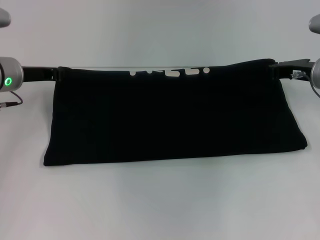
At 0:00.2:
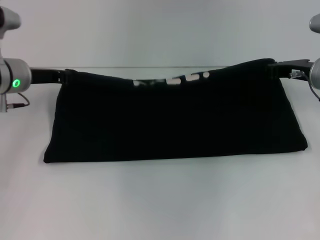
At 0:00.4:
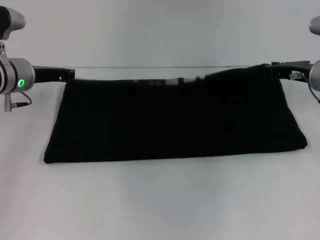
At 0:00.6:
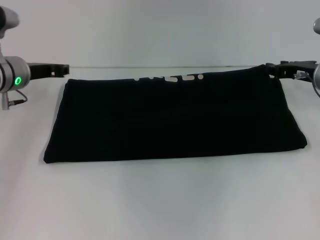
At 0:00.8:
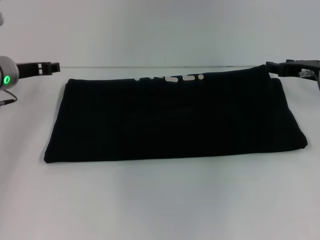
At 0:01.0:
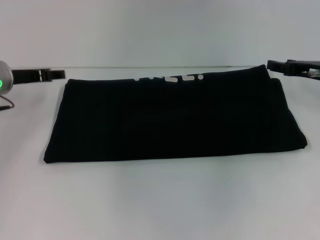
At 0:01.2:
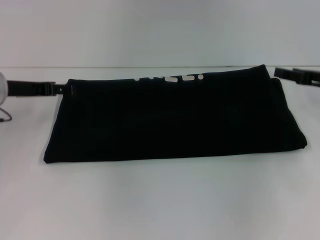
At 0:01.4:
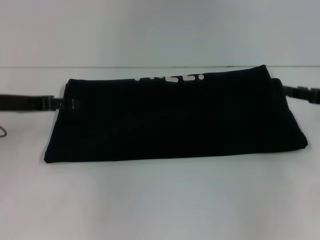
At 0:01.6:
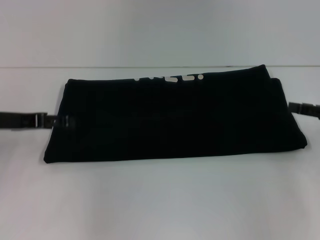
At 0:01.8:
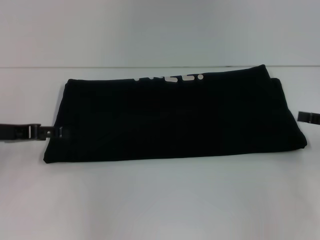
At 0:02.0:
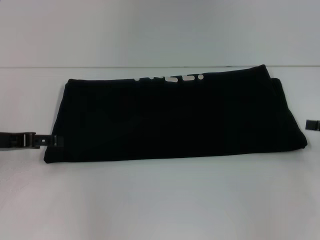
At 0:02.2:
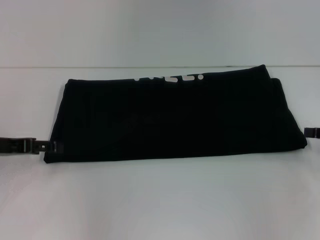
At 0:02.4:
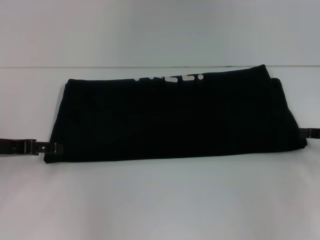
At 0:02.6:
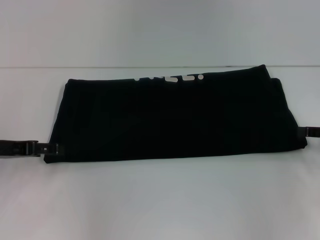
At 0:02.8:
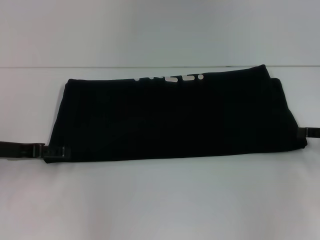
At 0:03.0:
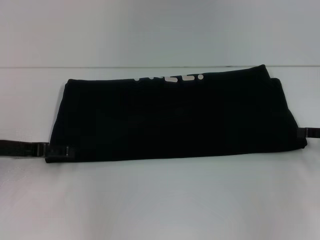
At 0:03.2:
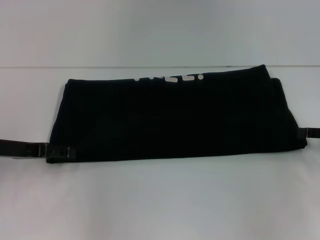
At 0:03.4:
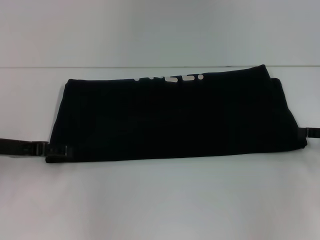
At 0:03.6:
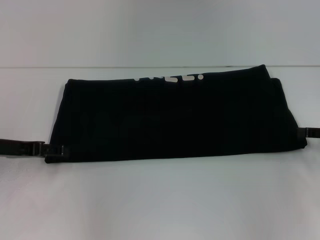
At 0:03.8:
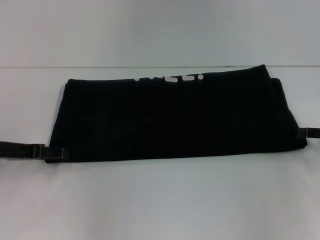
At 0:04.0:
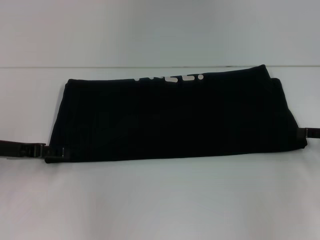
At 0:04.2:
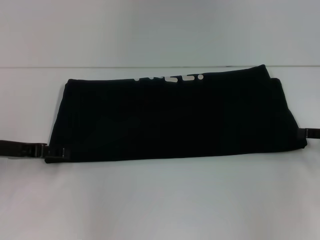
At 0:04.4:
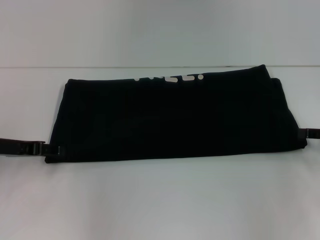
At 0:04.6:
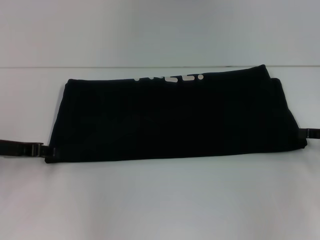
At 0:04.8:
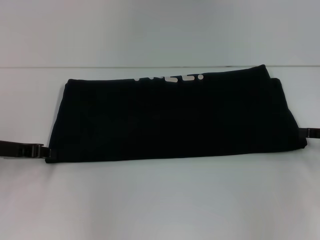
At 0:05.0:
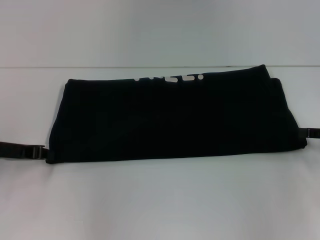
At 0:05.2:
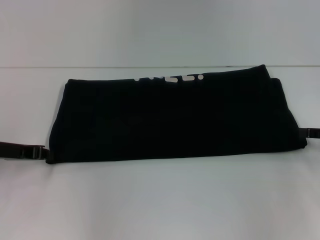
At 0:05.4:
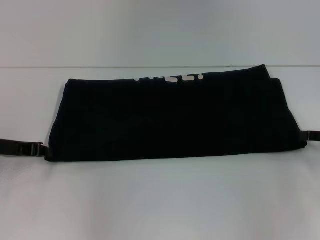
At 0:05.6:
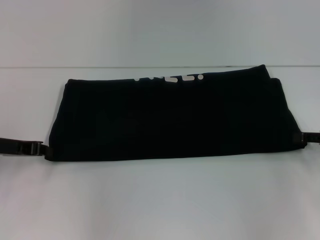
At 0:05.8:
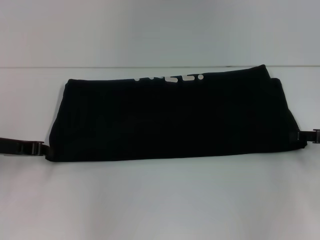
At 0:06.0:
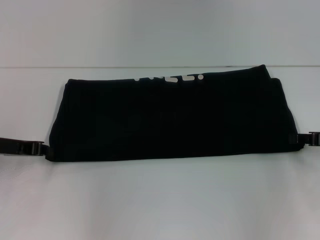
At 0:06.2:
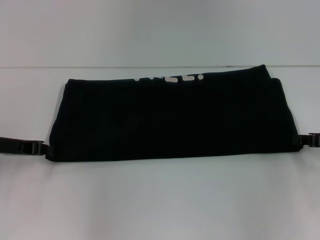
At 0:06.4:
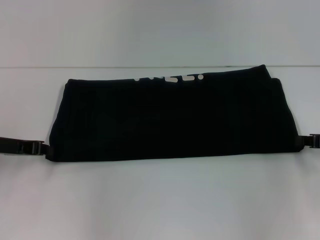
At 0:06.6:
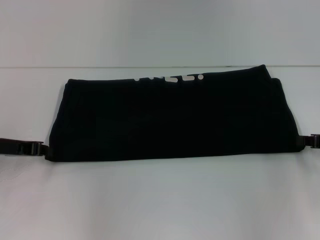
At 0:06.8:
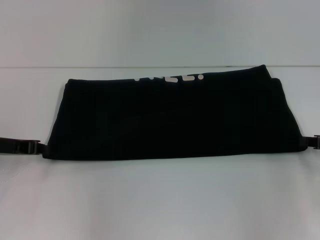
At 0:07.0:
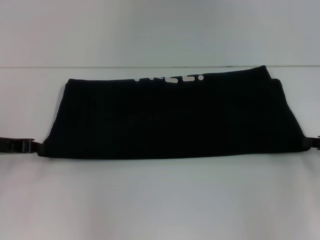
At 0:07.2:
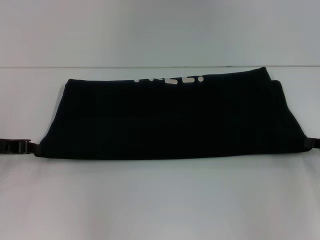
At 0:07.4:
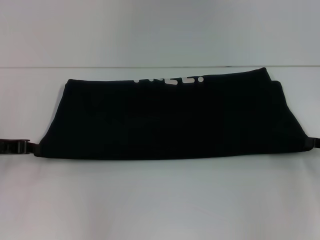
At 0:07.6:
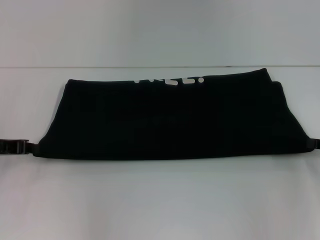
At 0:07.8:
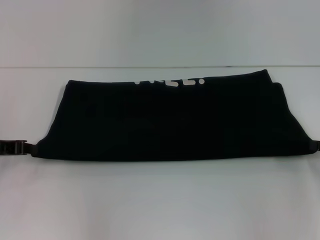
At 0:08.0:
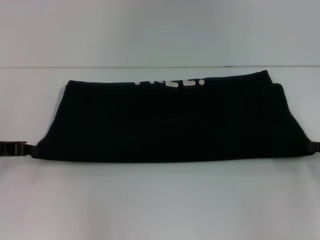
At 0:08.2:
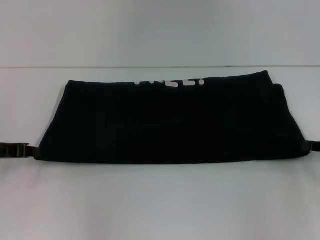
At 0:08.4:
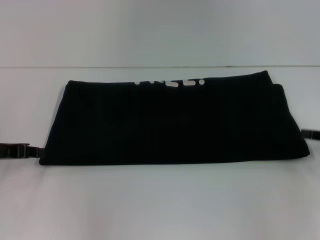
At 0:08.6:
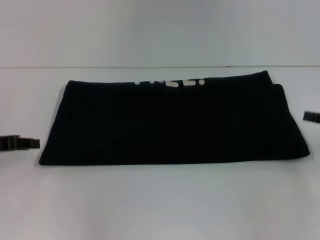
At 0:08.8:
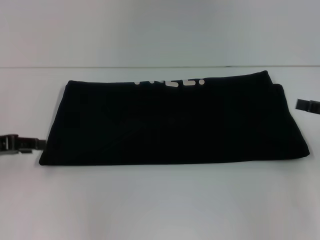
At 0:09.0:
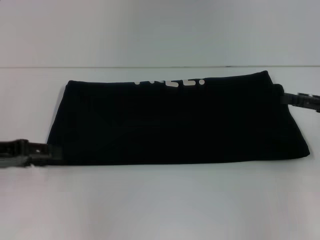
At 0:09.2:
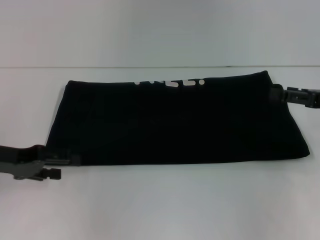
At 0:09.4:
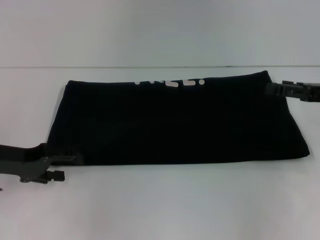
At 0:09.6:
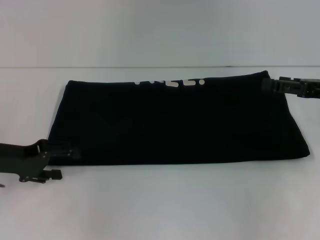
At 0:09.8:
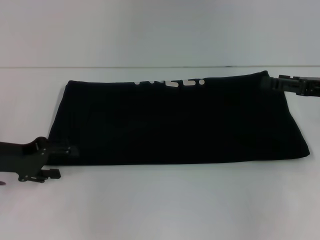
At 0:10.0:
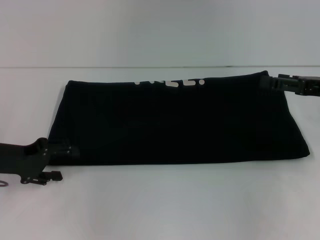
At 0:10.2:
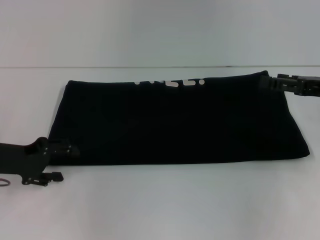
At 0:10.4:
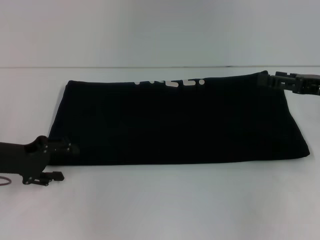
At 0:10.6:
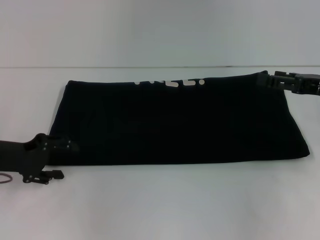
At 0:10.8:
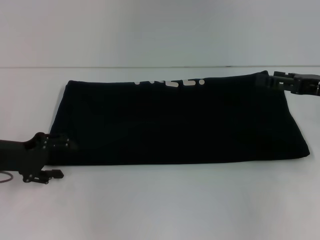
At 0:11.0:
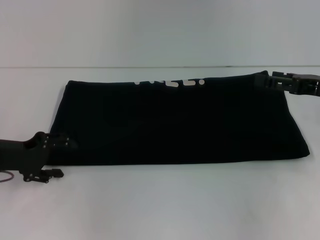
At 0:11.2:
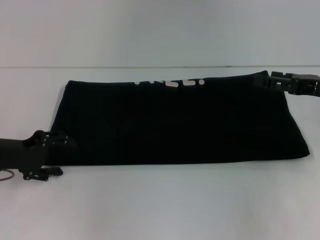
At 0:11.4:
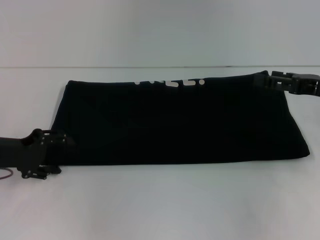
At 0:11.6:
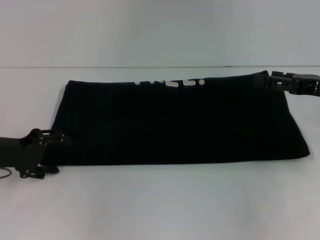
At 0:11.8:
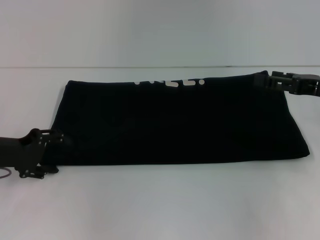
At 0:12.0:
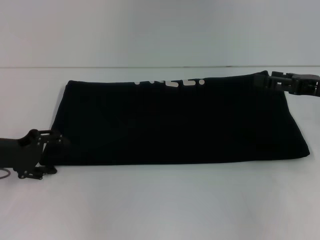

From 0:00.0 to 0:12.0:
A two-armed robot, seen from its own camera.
From 0:00.0 to 0:01.6: The right gripper is displaced backward and to the right by some 15 cm, and opens its fingers. Meanwhile the left gripper is displaced backward by about 10 cm, and opens.
From 0:01.6 to 0:03.0: There are only small adjustments of the grippers.
From 0:03.0 to 0:04.4: The two grippers keep their place.
From 0:06.0 to 0:07.6: The right gripper closes.
From 0:07.6 to 0:09.0: The left gripper opens up. Meanwhile the right gripper changes place by some 5 cm, and opens up.
From 0:09.0 to 0:10.4: The left gripper ends up about 5 cm from where it was, and opens up.
From 0:10.4 to 0:12.0: The grippers make only small movements.

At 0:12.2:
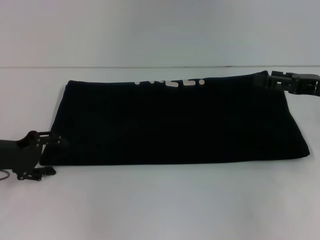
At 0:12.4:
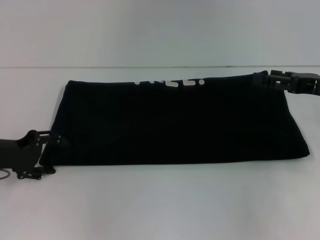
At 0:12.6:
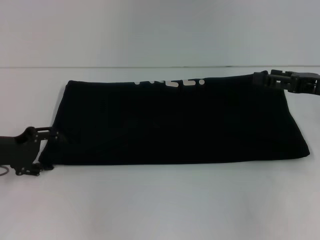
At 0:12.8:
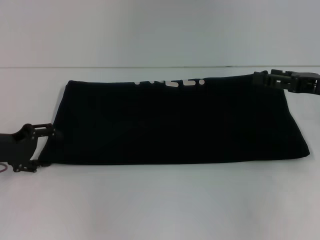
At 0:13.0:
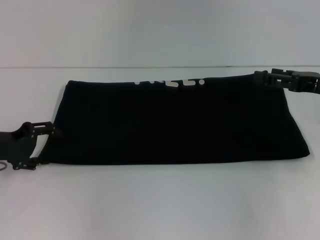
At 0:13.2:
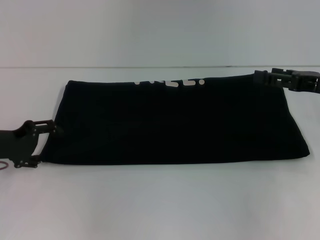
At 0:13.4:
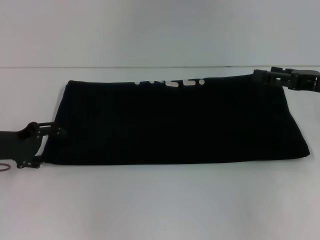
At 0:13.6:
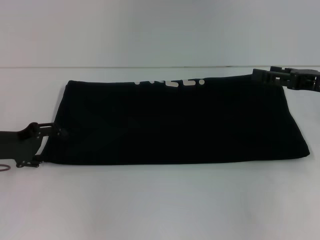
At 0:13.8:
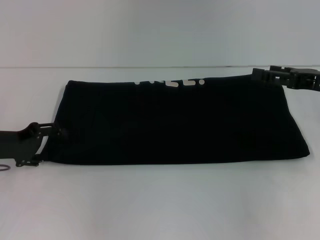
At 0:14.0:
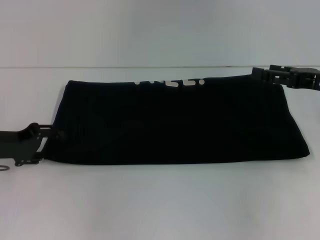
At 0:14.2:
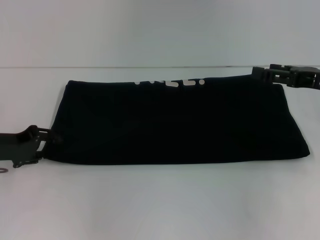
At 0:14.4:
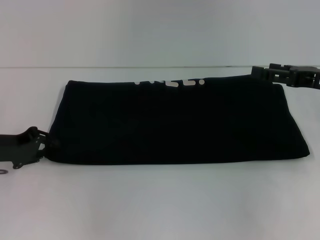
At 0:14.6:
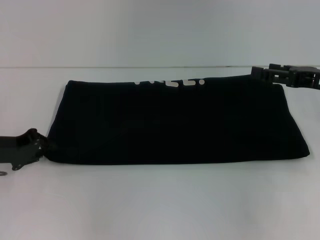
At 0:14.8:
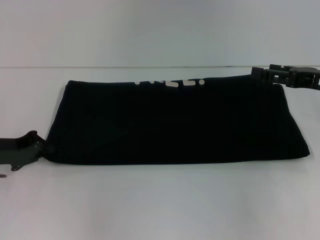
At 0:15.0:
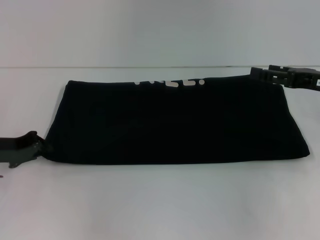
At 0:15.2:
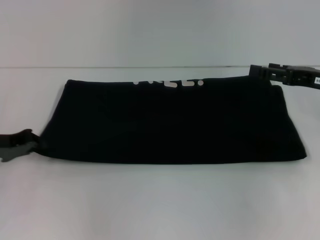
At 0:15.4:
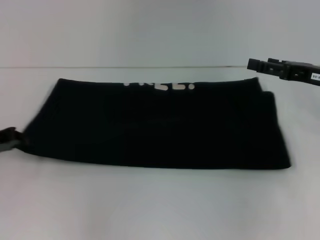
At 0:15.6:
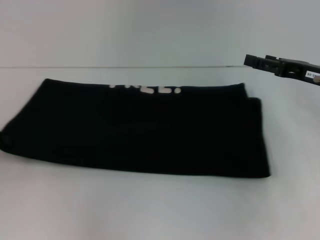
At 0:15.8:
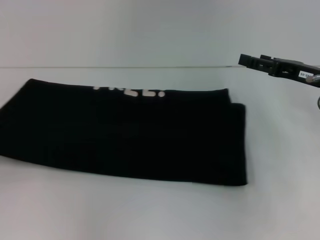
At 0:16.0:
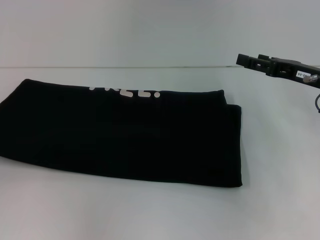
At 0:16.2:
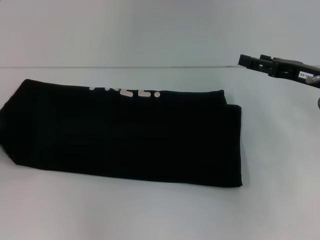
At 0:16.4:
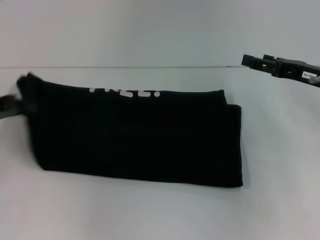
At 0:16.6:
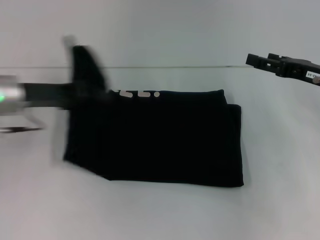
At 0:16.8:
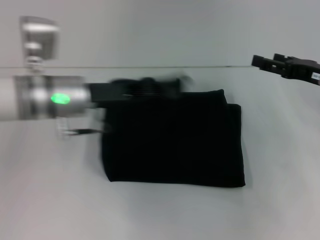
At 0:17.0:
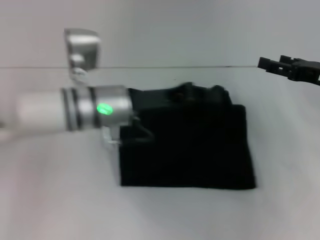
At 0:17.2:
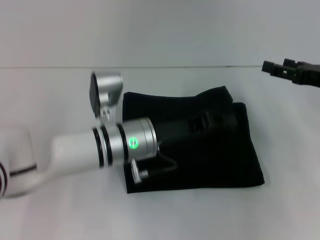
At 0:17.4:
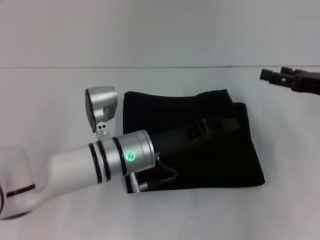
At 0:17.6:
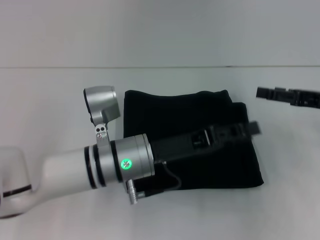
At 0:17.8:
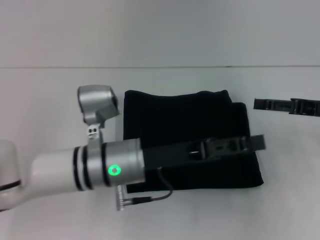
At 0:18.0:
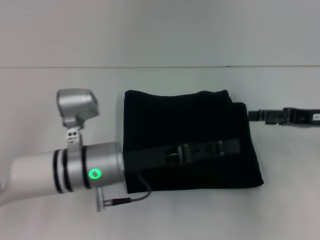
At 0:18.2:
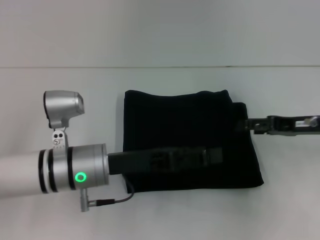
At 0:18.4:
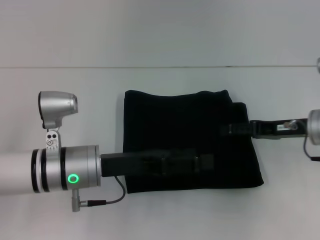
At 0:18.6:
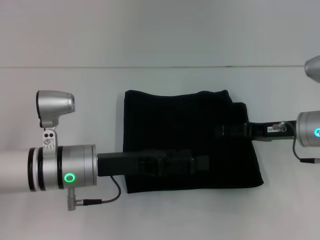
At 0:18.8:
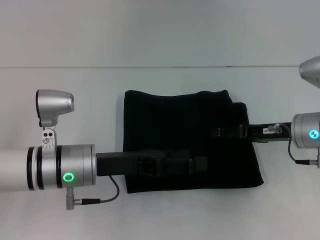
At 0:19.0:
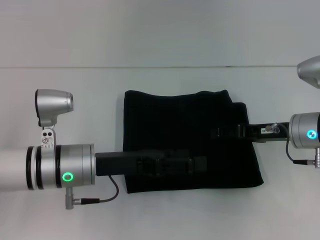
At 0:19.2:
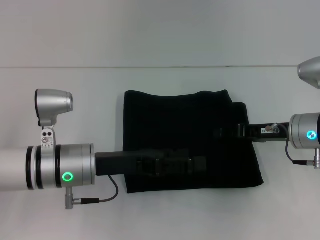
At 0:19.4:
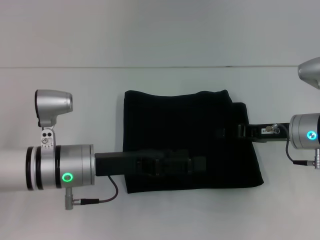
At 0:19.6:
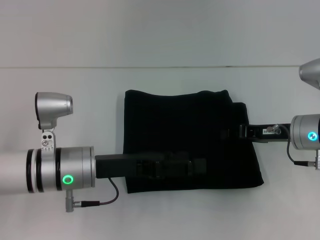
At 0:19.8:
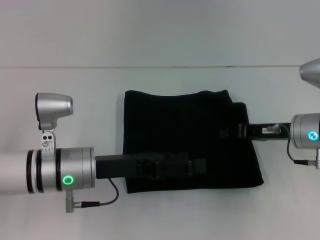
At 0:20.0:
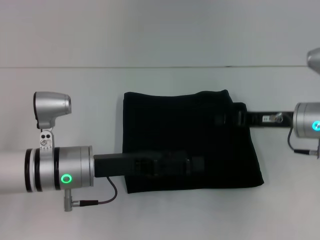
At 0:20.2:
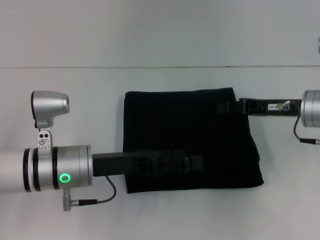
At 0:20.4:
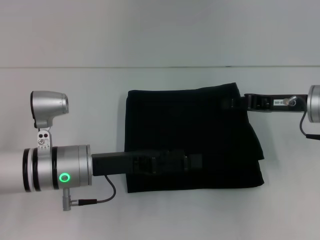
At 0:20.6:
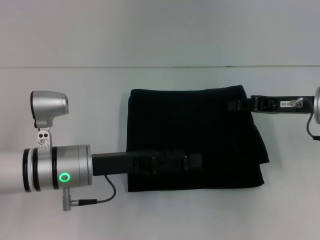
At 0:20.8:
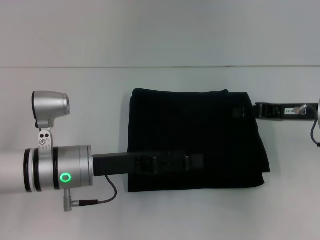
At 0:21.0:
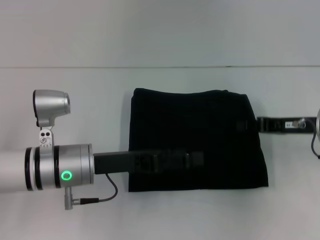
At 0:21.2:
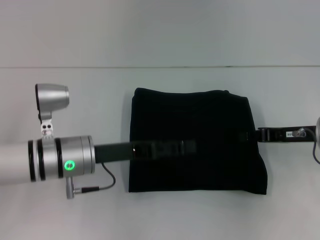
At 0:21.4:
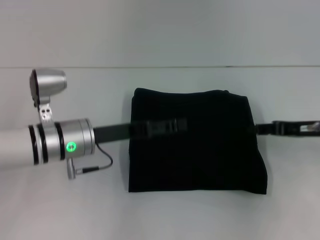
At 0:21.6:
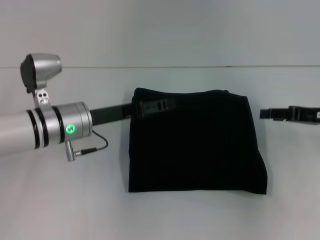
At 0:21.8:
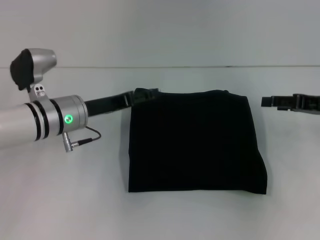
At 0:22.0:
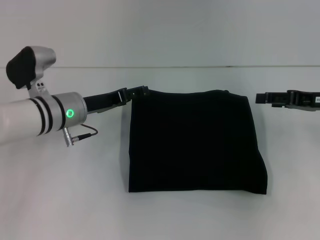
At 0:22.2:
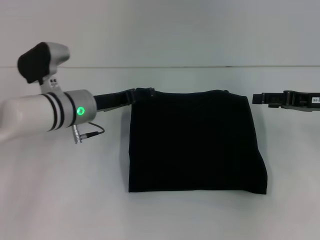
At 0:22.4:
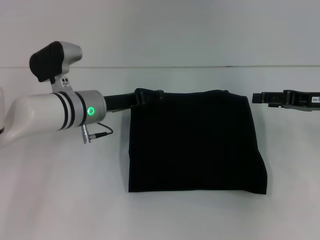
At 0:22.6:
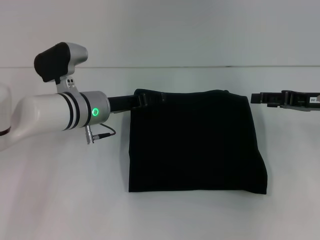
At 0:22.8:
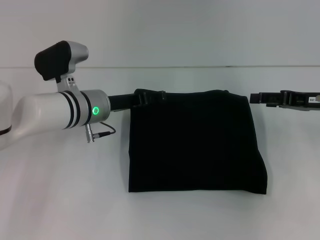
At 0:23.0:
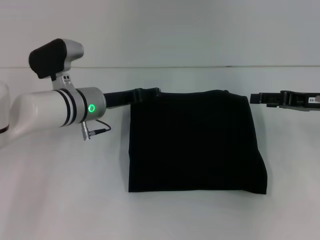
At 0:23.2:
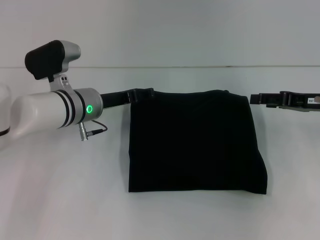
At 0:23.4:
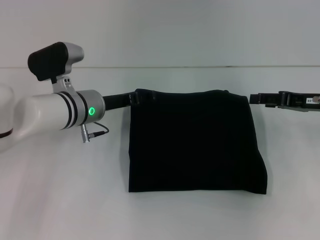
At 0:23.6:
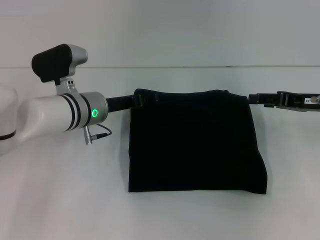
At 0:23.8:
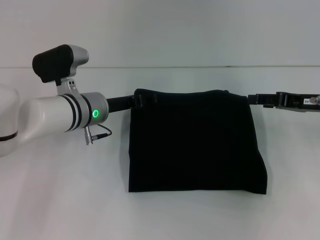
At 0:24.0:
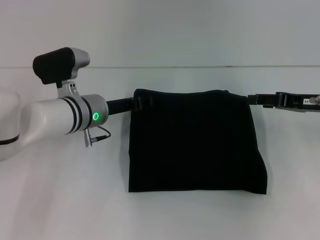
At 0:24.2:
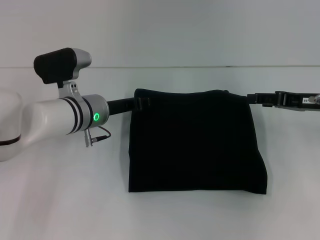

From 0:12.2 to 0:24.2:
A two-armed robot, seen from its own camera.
Step, from 0:12.2 to 0:18.2: Fold the clothes with your left hand.
From 0:12.2 to 0:13.8: The grippers make only small movements.
From 0:13.8 to 0:15.2: The left gripper closes its fingers.
From 0:15.2 to 0:16.6: The left gripper heads upward and to the right, covering approximately 10 cm.
From 0:16.6 to 0:18.2: The left gripper moves to the right, backward and downward, about 15 cm, and opens.
From 0:18.2 to 0:19.8: The right gripper moves some 5 cm, and closes.
From 0:19.8 to 0:21.2: The grippers move only a little.
From 0:21.2 to 0:22.6: The left gripper goes approximately 10 cm forward; the right gripper ends up about 5 cm from where it was, and opens.
From 0:22.6 to 0:24.2: The grippers move only a little.
